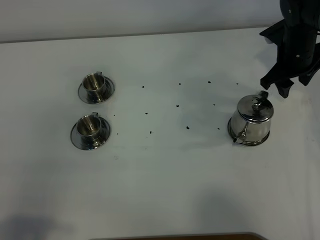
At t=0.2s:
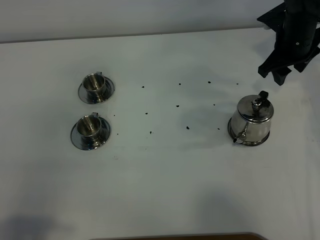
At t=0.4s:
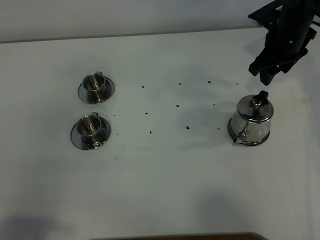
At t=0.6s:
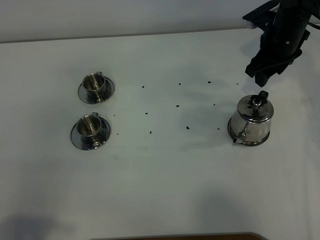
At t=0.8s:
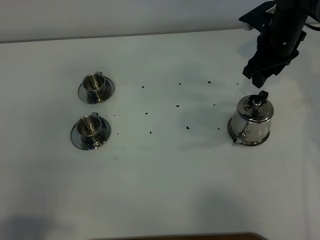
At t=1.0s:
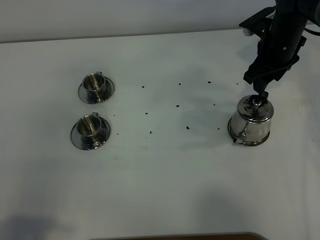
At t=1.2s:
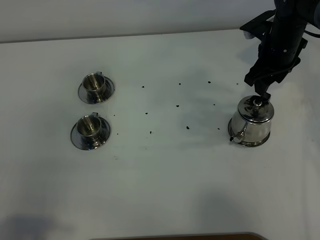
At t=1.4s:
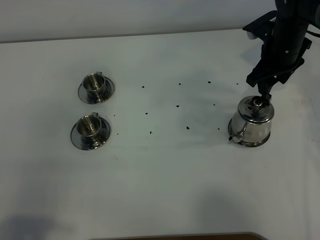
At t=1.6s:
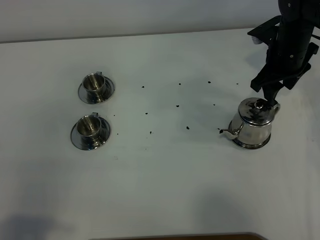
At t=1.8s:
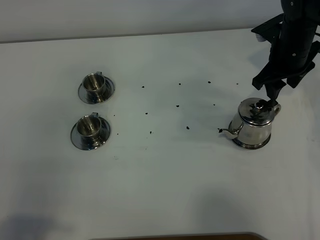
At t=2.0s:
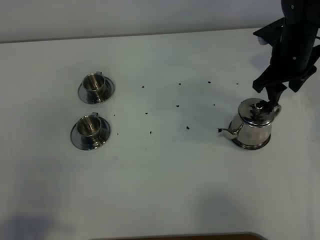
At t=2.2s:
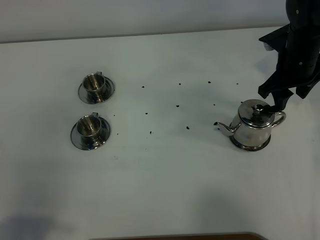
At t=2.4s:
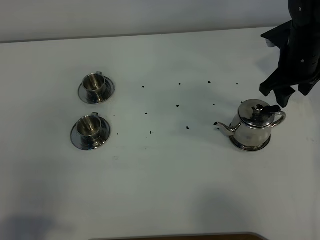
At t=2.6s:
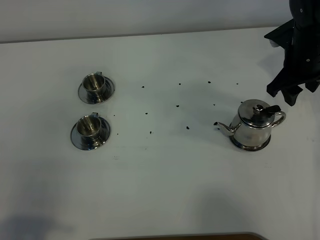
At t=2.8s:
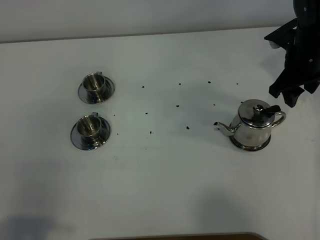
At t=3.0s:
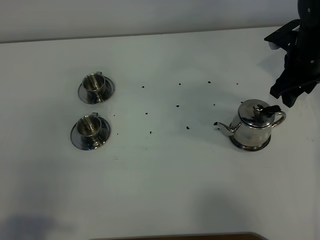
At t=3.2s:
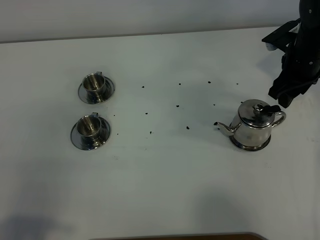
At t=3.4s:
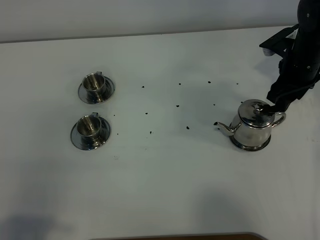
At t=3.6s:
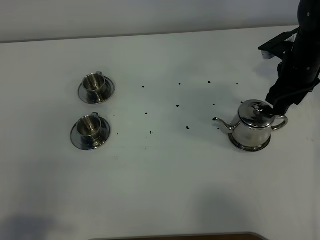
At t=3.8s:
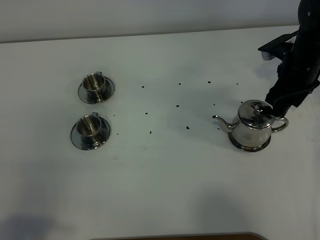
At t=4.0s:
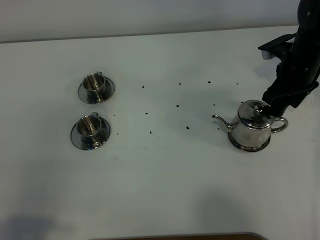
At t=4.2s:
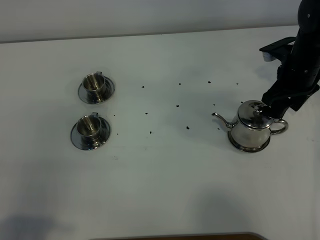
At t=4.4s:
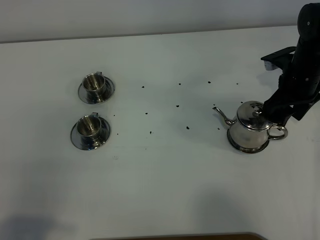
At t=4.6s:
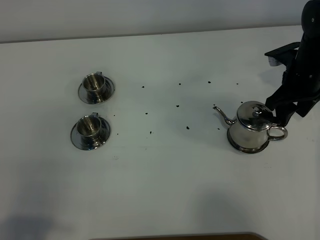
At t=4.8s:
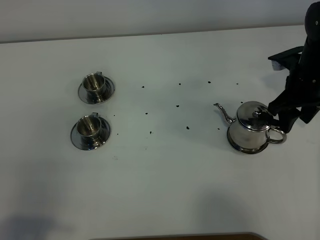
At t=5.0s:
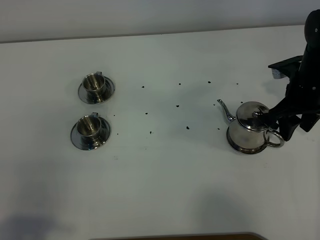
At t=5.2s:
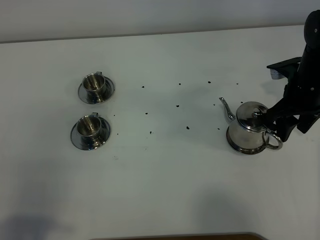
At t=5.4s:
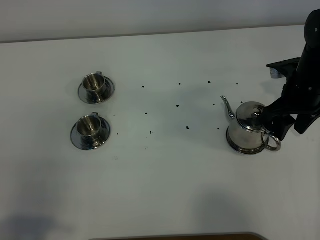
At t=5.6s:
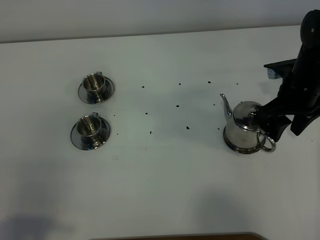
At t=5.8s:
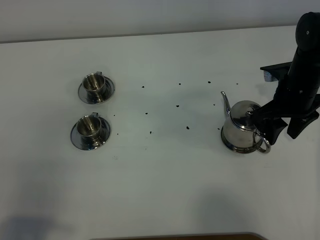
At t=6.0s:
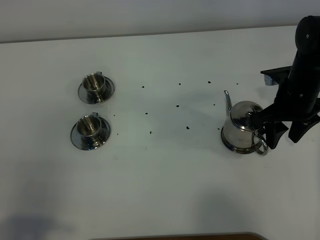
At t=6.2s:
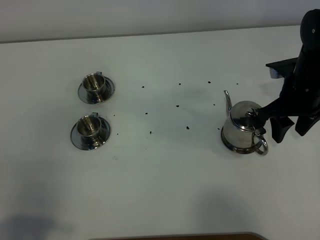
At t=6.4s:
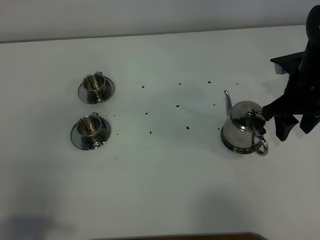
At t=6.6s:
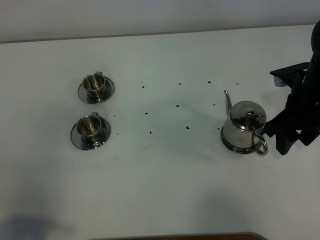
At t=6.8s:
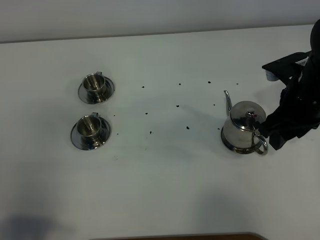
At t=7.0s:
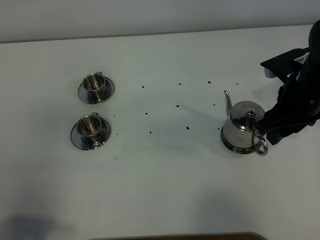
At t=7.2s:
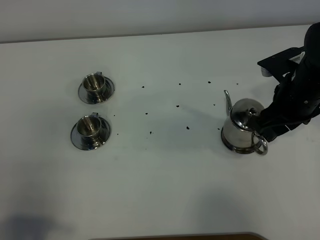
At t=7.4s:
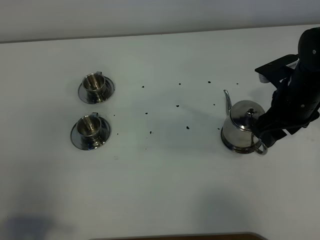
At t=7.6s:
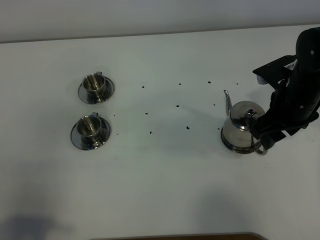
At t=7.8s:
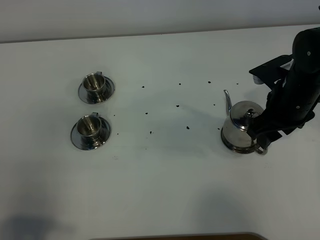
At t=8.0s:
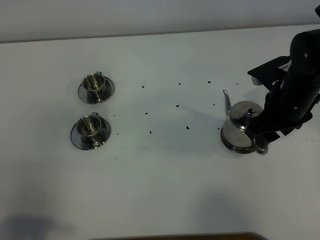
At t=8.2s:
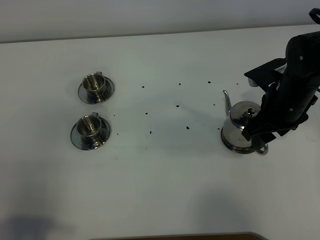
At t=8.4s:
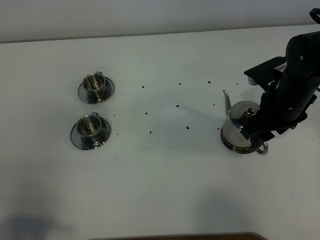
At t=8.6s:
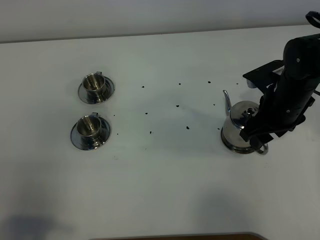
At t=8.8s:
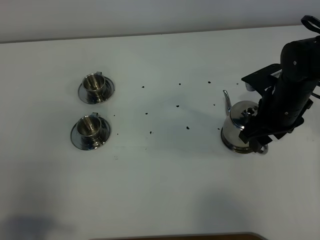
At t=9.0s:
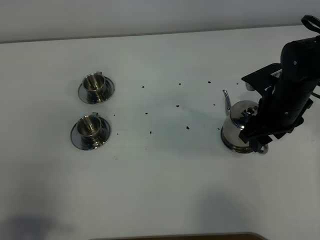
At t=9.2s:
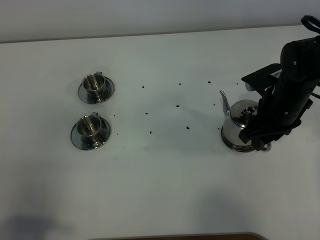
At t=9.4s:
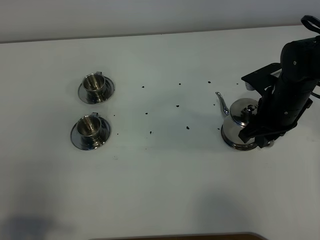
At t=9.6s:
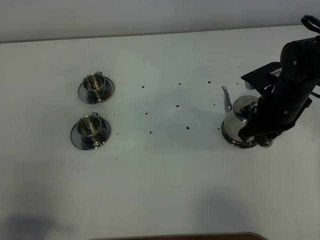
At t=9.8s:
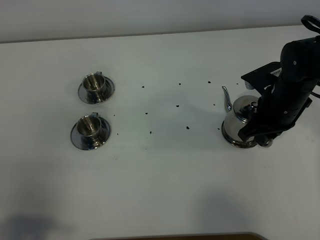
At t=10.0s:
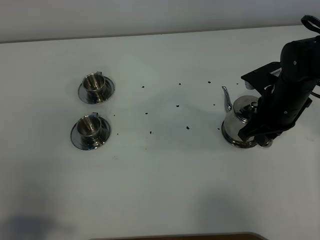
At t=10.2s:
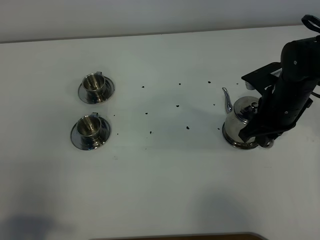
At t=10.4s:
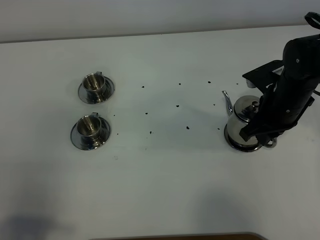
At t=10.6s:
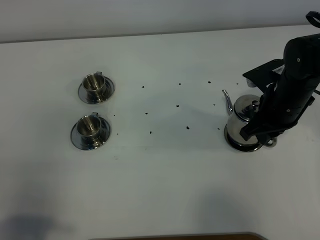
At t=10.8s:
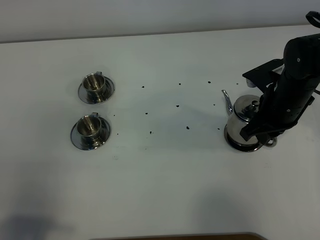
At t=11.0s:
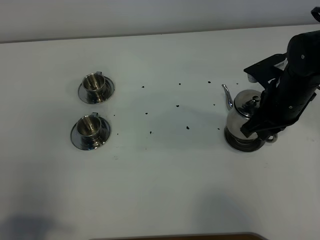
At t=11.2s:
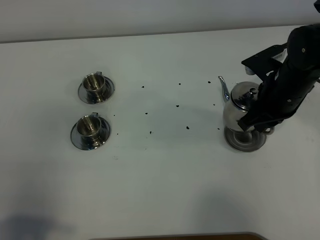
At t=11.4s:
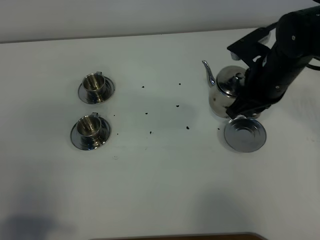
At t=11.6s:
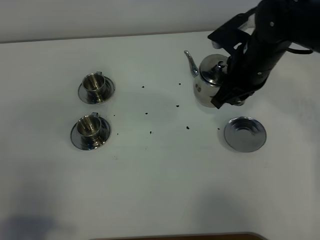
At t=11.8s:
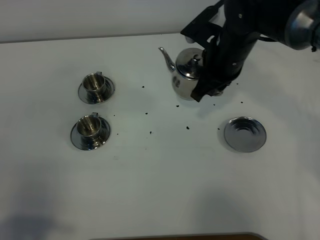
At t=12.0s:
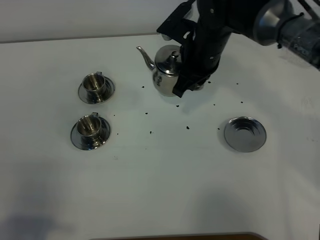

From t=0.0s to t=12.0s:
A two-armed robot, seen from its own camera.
Task of the whole recording: grasp the stainless steel teapot and pour the tea into the two stainless steel teacups one by one, put the stainless steel teapot back in its original place.
Step, from t=0.0s to t=11.0s: Pick up the teapot with the right gripper.
From t=0.0s to t=4.4s: The grippers make only small movements.
From t=4.4s to t=6.0s: The grippers make only small movements.
From t=7.6s to t=9.0s: The grippers stay close to where they were, moving slightly.
From t=9.0s to t=10.4s: The right gripper closes its fingers.
From t=10.4s to t=12.0s: The right gripper moves to the left and upward, approximately 15 cm.

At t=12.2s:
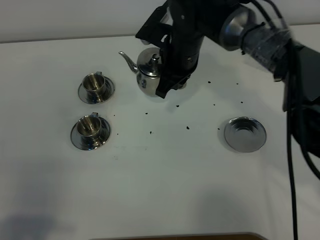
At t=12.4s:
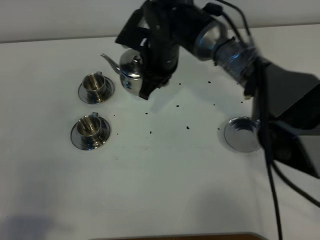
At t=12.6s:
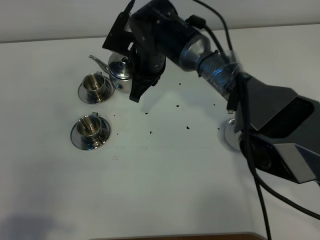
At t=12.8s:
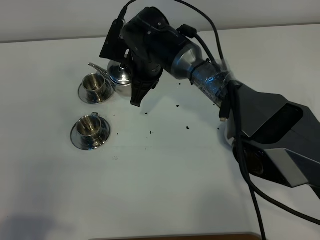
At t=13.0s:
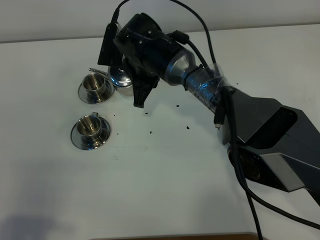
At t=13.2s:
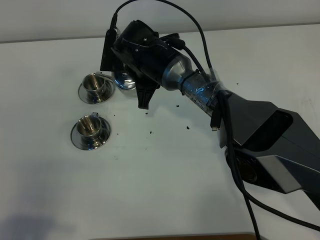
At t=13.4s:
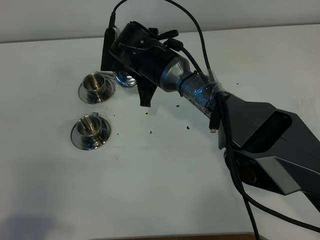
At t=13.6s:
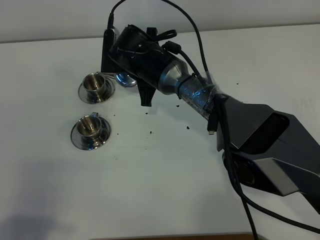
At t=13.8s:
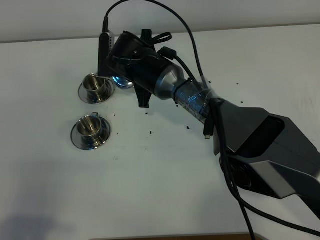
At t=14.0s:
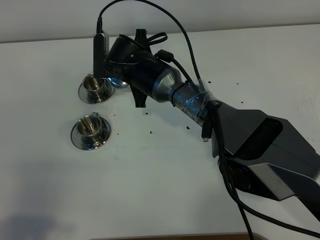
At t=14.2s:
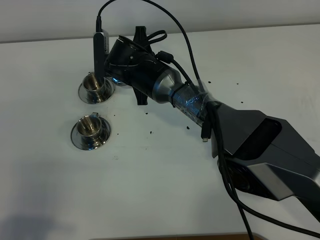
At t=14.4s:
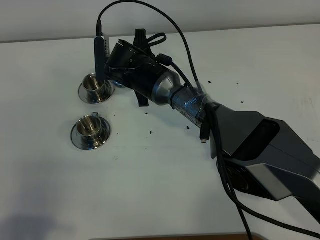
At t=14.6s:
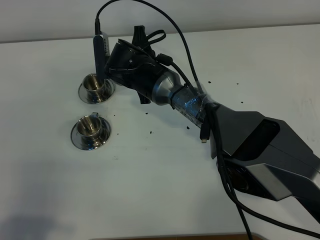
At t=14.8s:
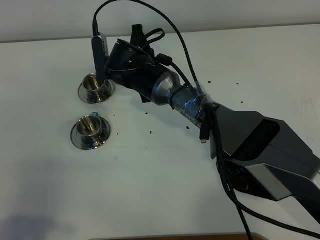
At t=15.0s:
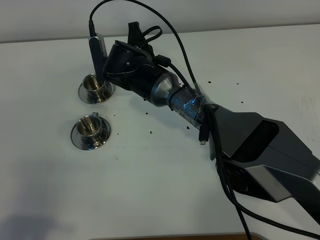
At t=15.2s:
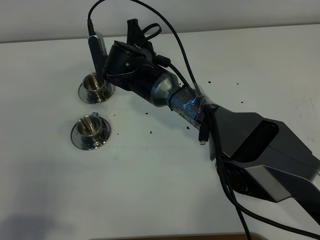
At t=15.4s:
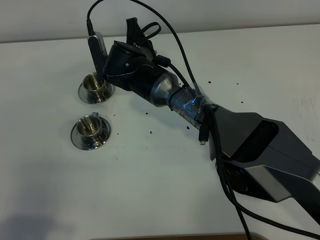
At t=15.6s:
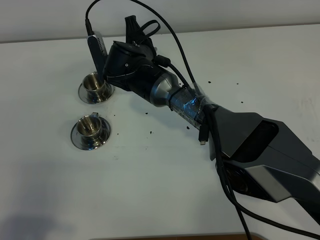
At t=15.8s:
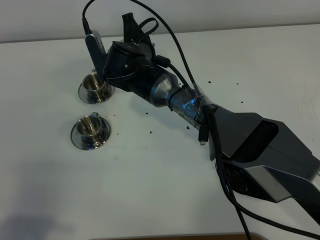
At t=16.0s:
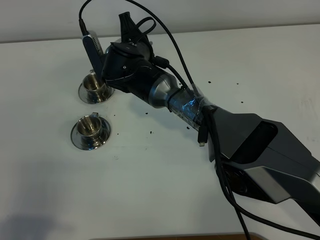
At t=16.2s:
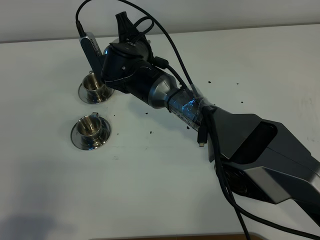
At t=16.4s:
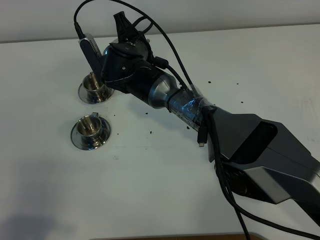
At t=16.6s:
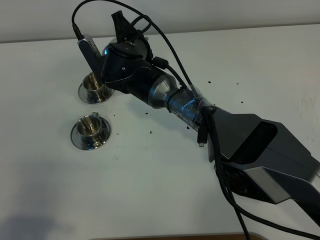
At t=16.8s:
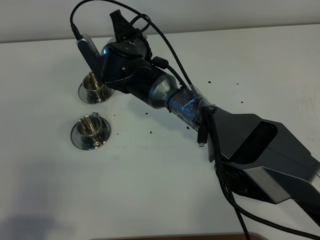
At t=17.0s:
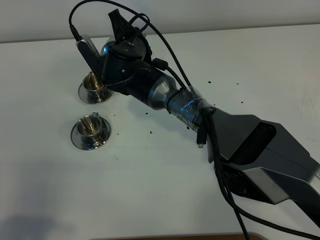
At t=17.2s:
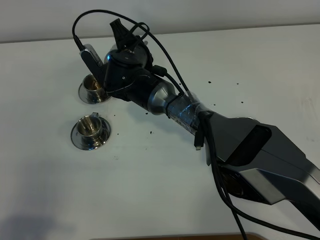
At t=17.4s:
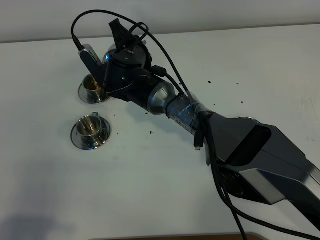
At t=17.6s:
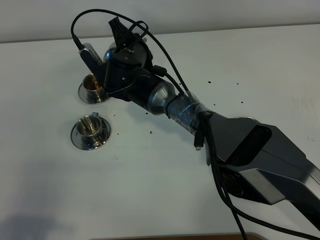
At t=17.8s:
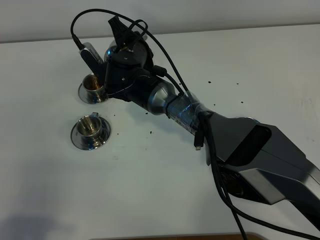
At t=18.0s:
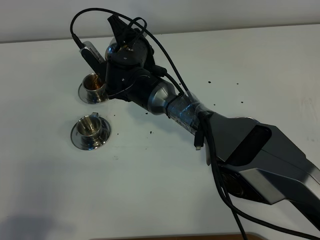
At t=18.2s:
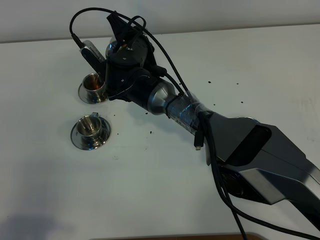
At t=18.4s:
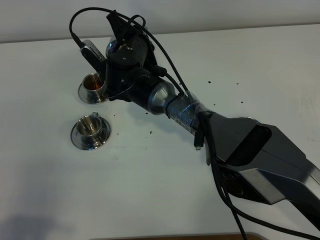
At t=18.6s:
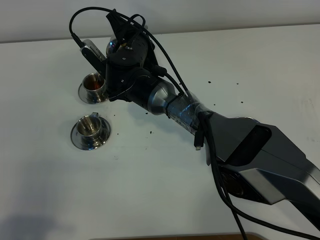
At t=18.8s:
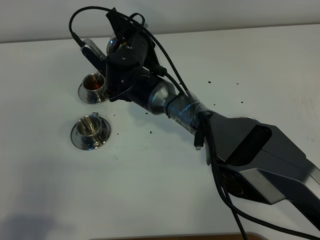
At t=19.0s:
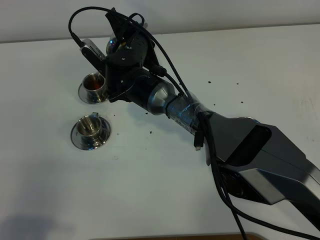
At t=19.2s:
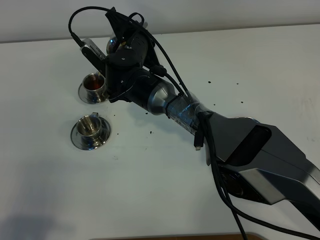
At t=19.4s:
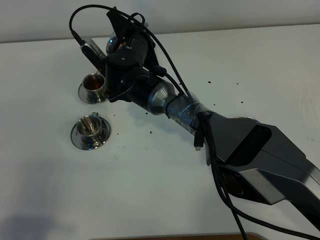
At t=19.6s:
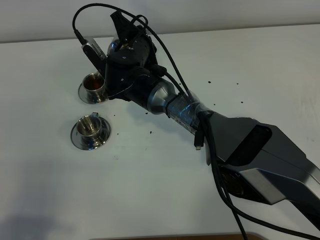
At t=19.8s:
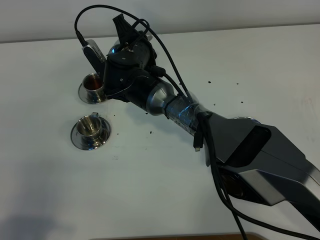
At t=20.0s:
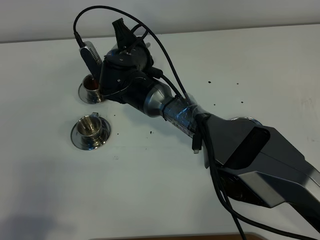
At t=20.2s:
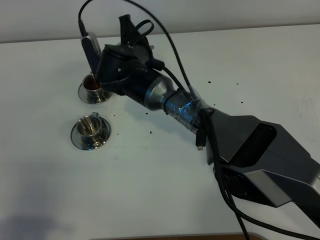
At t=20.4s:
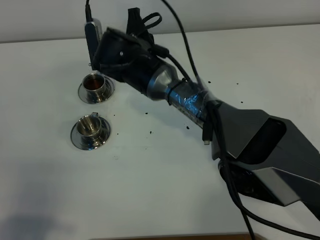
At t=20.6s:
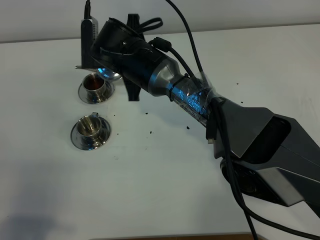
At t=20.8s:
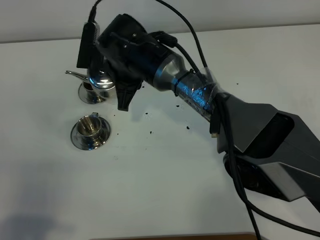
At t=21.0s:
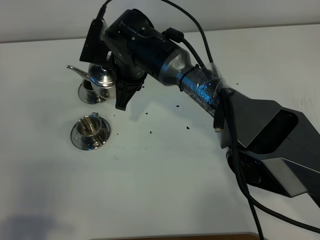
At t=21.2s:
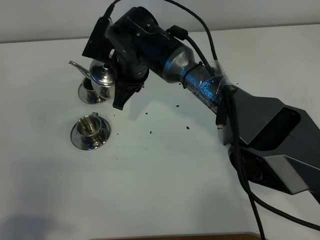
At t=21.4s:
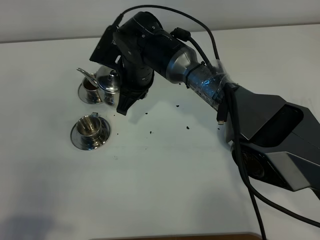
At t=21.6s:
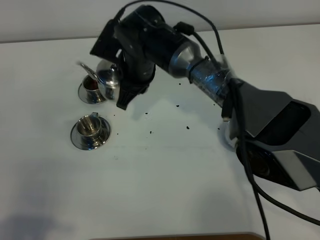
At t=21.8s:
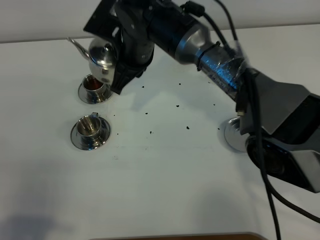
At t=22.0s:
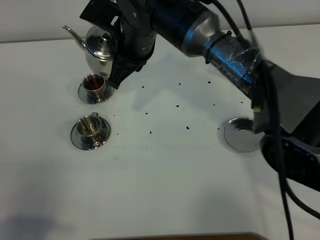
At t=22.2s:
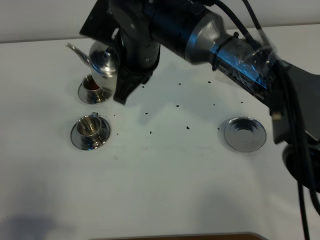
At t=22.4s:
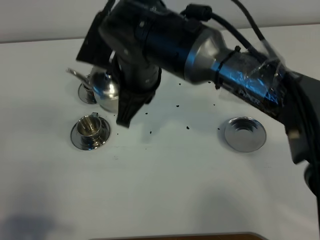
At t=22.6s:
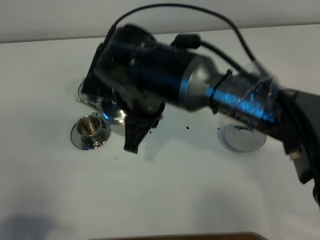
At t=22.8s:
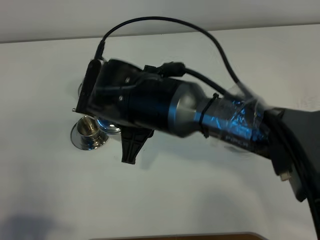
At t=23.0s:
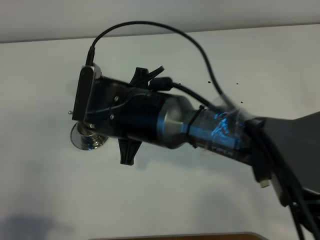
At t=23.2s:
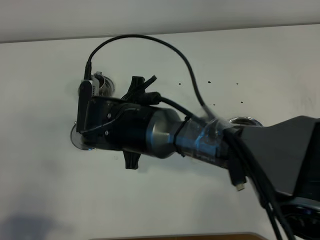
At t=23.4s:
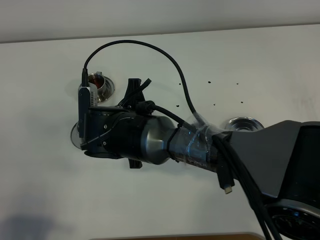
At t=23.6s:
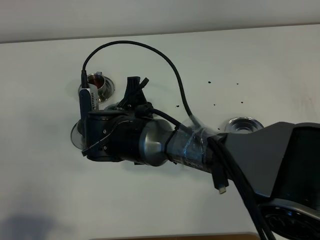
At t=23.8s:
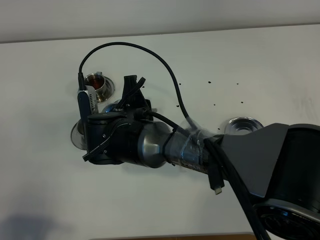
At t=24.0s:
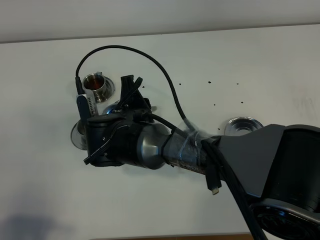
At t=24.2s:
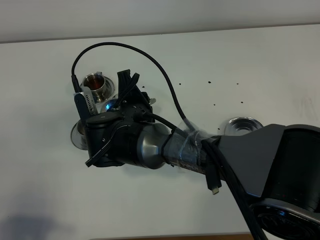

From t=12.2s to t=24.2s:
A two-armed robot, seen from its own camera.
Task of the whole recording: grasp the stainless steel teapot and pour the tea into the two stainless steel teacups one by one, put the stainless steel teapot back in its original place.
Step, from t=12.2s to t=20.2s: Pour tea into the teacup with the right gripper.
From t=12.2s to t=13.8s: The right gripper goes some 10 cm to the left.
From t=13.8s to t=15.2s: The grippers stay close to where they were, moving slightly.
From t=15.2s to t=16.6s: The grippers stay close to where they were, moving slightly.
From t=16.6s to t=19.8s: There are only small adjustments of the grippers.
From t=21.2s to t=22.6s: The right gripper moves backward and upward, some 15 cm.
From t=22.6s to t=24.2s: The right gripper moves downward, approximately 10 cm.
